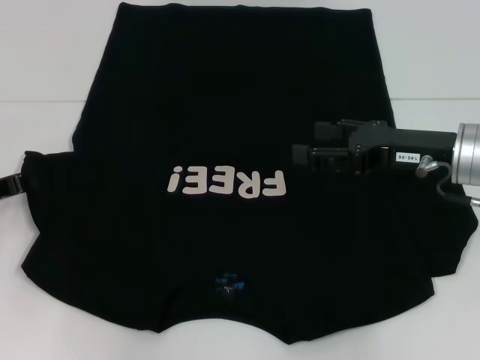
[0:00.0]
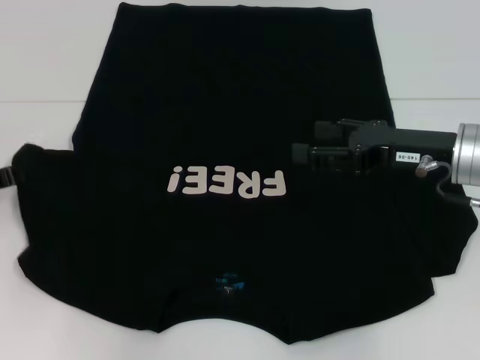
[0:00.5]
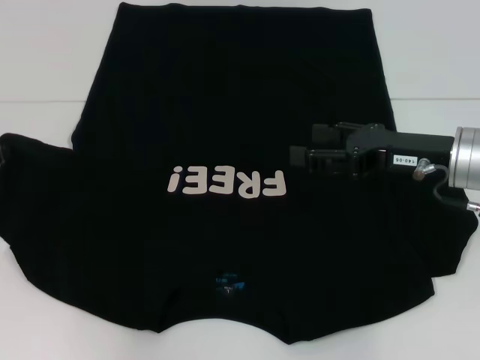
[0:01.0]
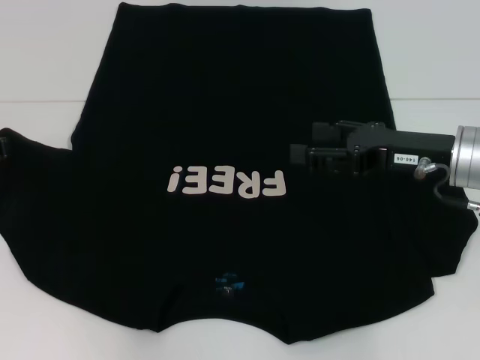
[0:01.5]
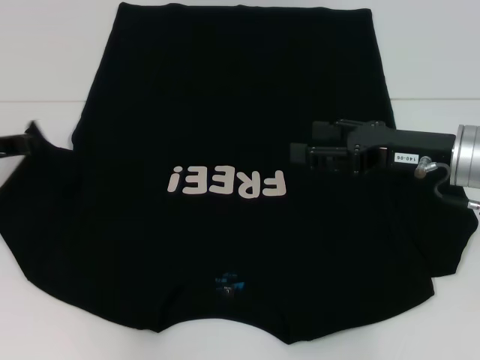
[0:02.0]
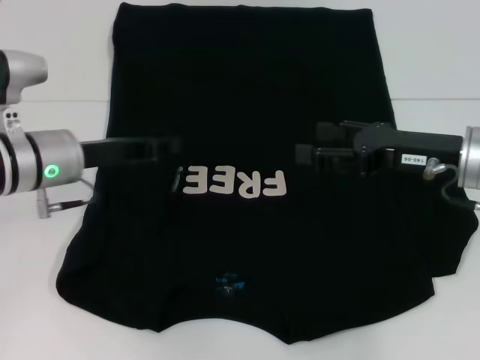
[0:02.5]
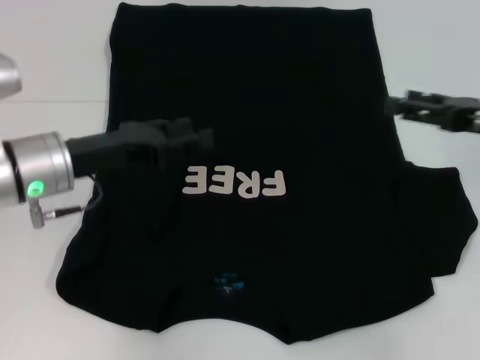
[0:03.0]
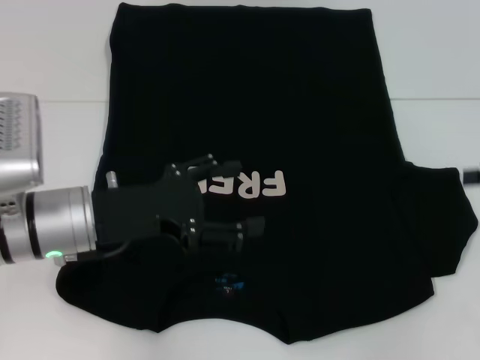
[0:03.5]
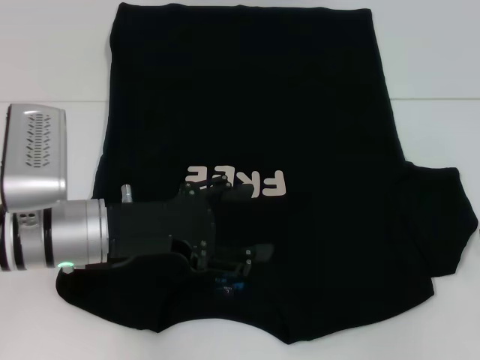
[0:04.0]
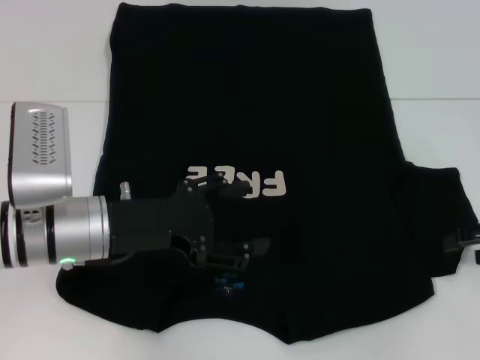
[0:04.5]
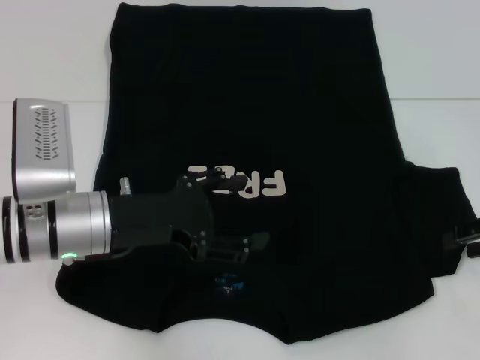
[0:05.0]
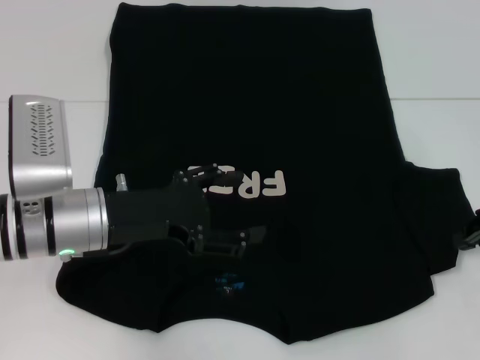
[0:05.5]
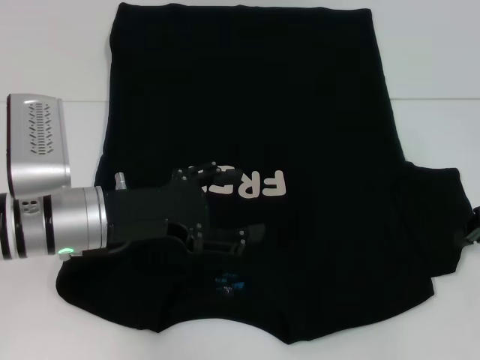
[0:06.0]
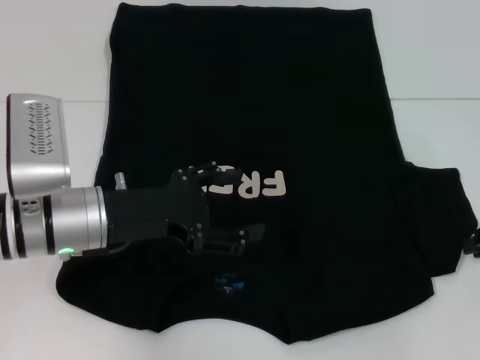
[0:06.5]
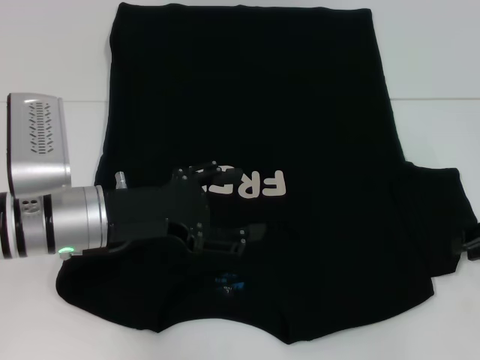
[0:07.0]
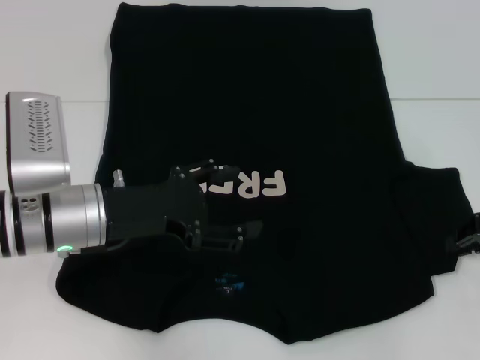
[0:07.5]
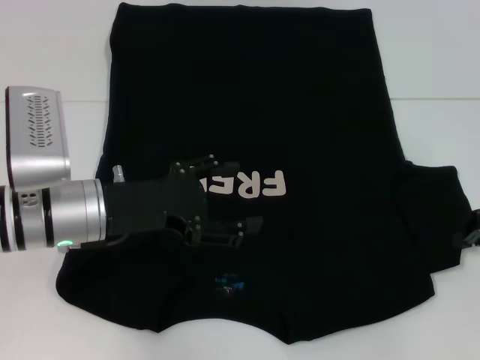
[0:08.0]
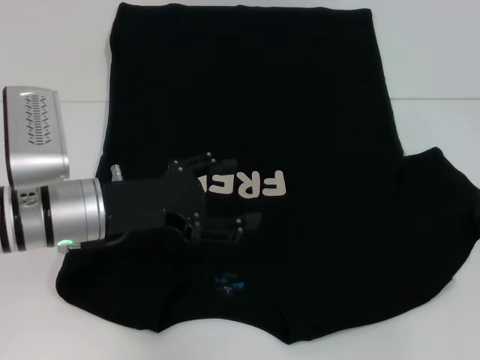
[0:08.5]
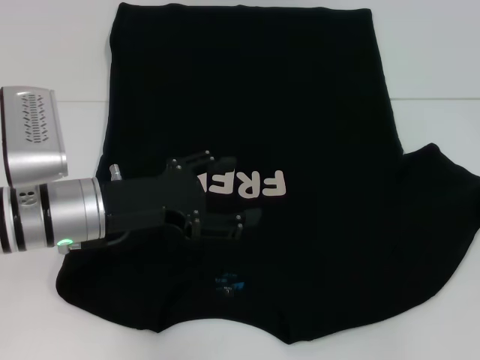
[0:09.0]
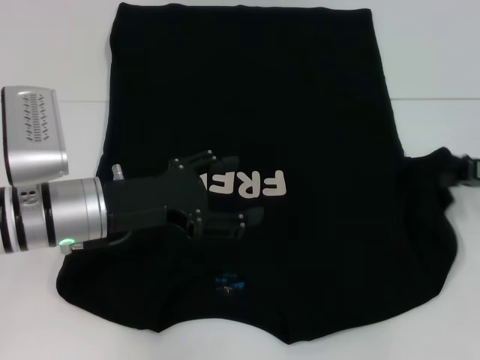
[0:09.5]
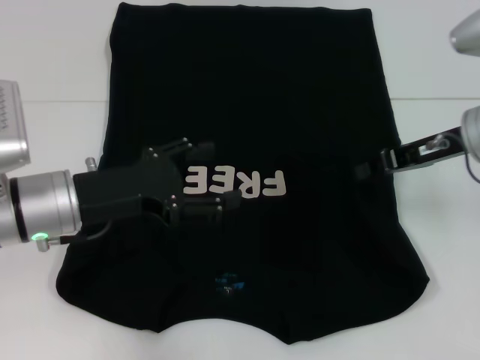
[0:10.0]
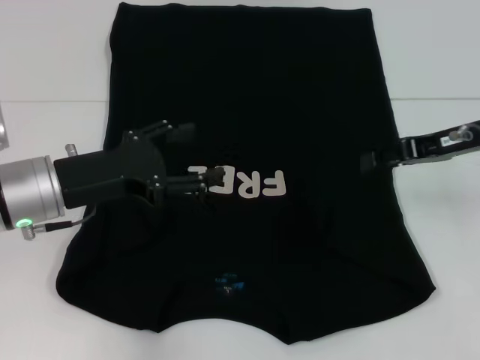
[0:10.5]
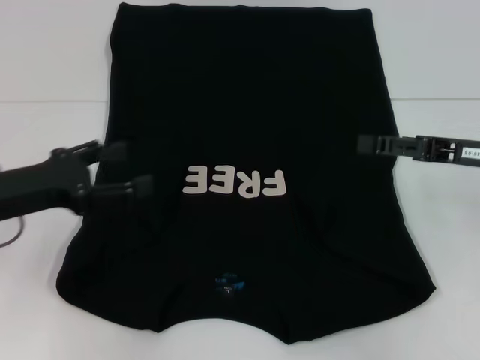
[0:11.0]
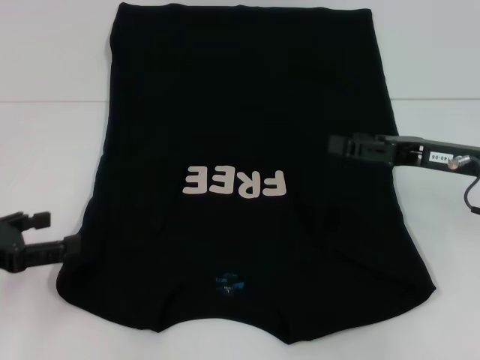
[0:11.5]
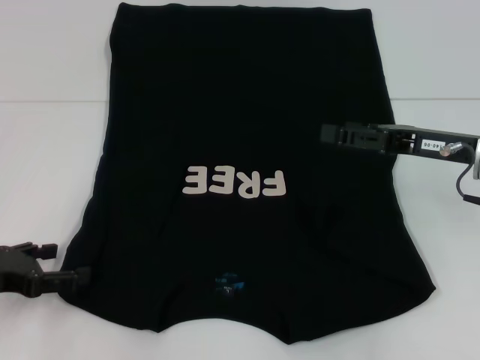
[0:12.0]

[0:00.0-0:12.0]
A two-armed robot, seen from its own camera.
Step, 0:00.0 to 0:03.0: Fold the bottom left sleeve with your left hand.
Step, 0:03.5 to 0:10.5: Fold the bottom right sleeve with your right hand.
0:00.0 to 0:02.0: The left gripper moves some 5 cm.
0:02.0 to 0:04.0: The left gripper heads to the right and backward, covering roughly 15 cm, and opens, while the right gripper is displaced to the right by some 15 cm.
0:04.0 to 0:06.0: The right gripper shifts by some 5 cm, and closes up.
0:06.0 to 0:08.0: The right gripper opens and closes again.
0:08.0 to 0:10.0: The right gripper shifts roughly 10 cm to the left and upward.
0:10.0 to 0:12.0: The right gripper opens up. Meanwhile the left gripper travels to the left and backward by approximately 15 cm.

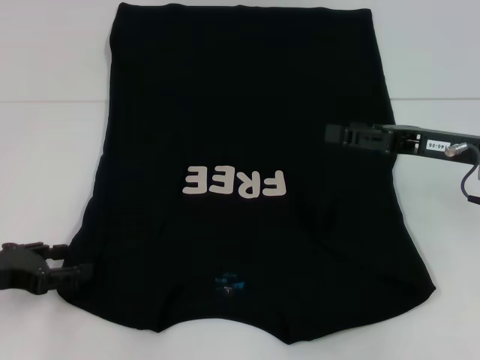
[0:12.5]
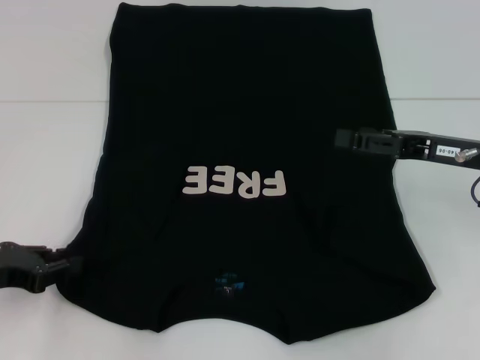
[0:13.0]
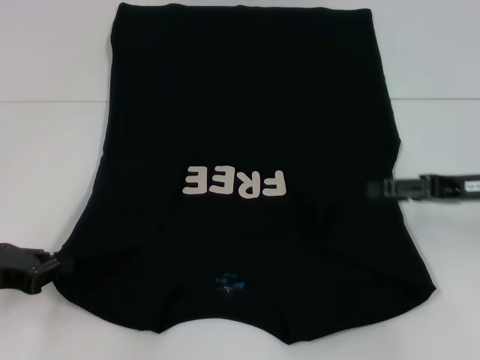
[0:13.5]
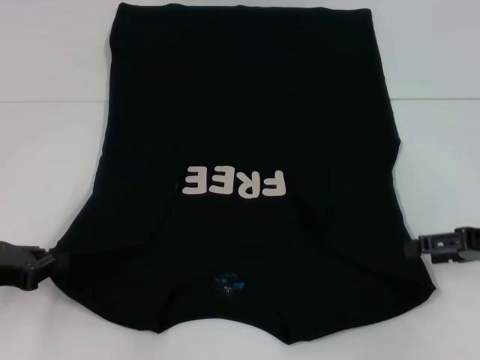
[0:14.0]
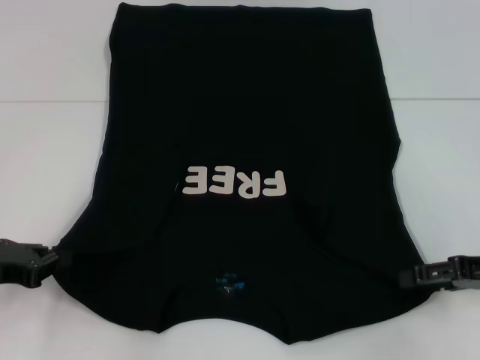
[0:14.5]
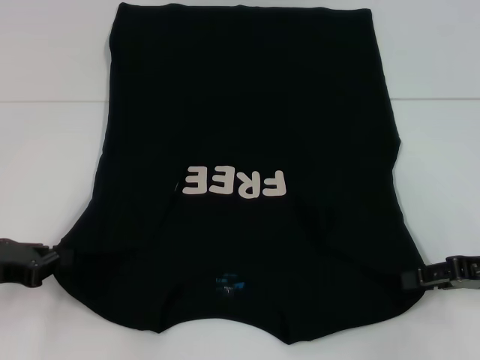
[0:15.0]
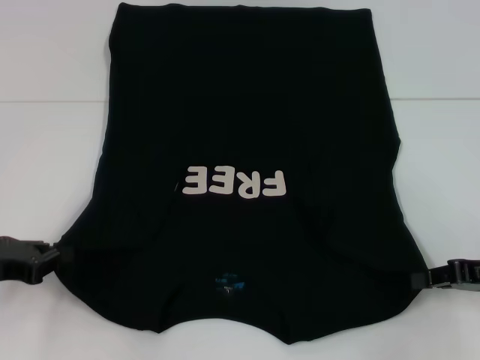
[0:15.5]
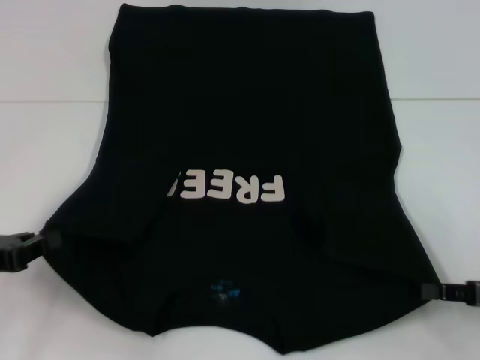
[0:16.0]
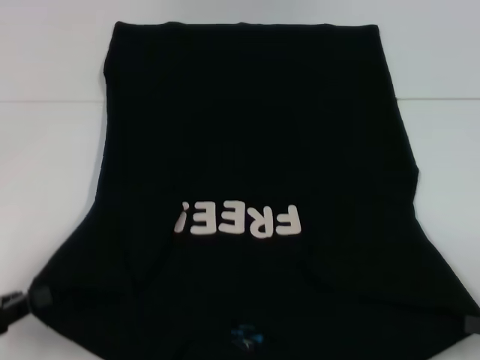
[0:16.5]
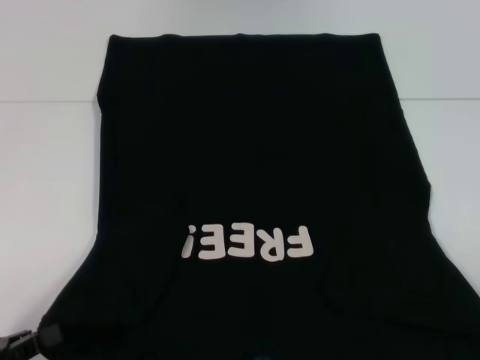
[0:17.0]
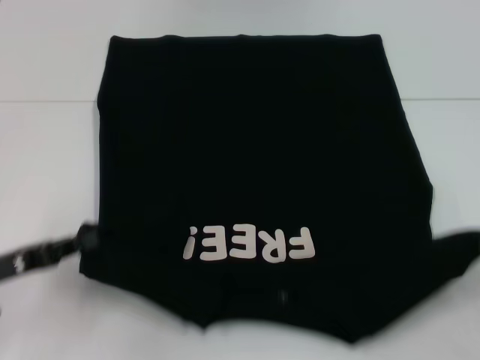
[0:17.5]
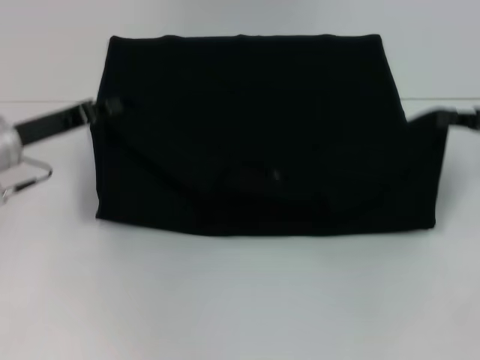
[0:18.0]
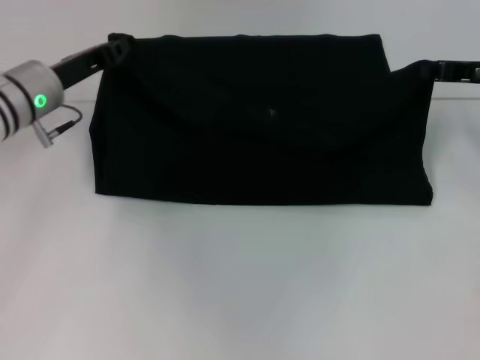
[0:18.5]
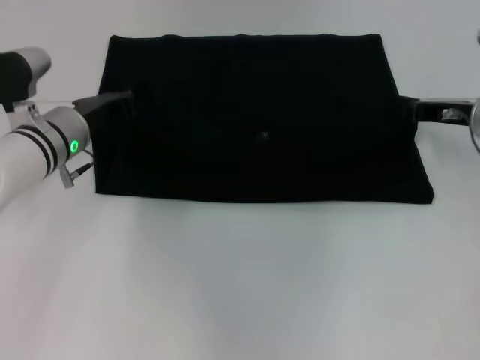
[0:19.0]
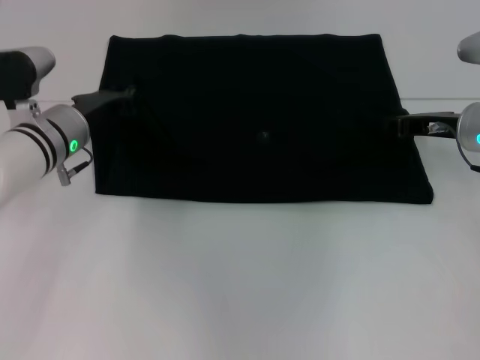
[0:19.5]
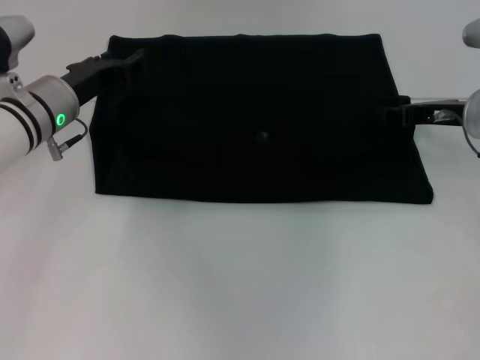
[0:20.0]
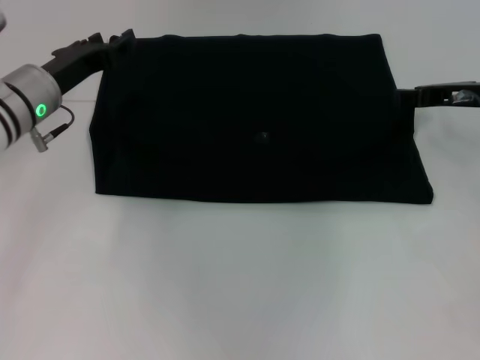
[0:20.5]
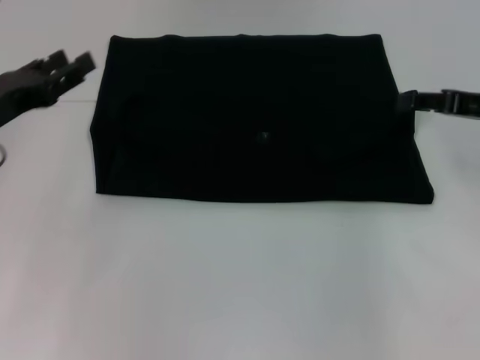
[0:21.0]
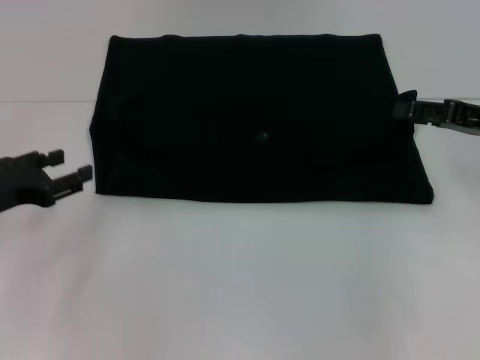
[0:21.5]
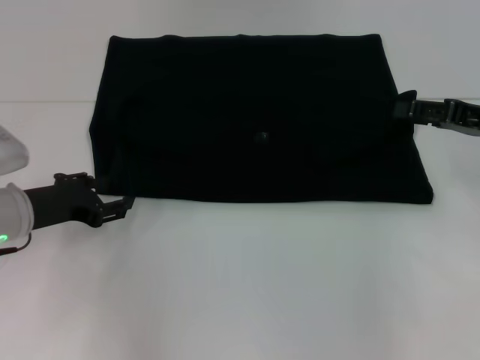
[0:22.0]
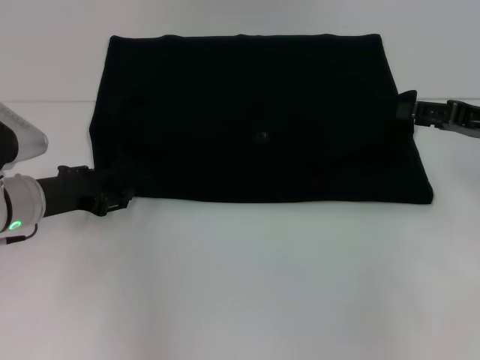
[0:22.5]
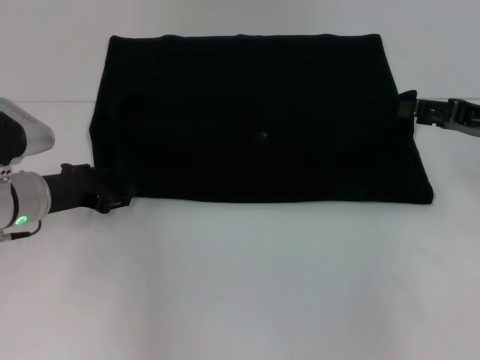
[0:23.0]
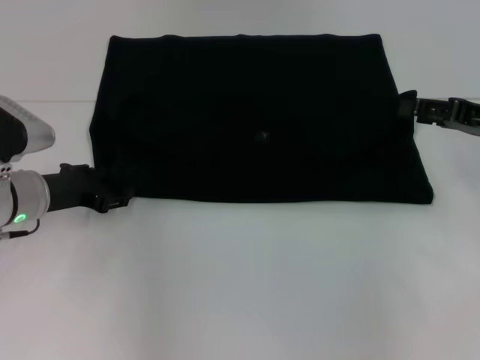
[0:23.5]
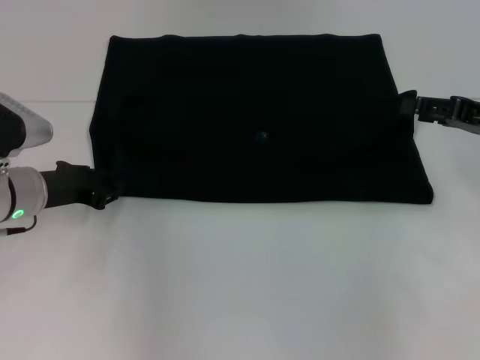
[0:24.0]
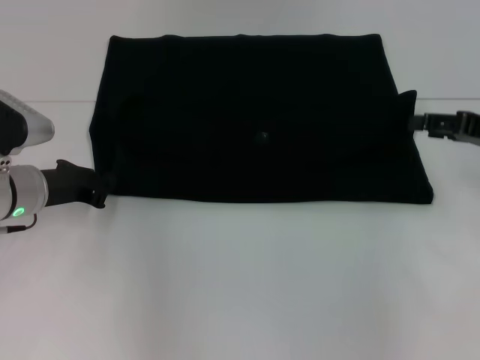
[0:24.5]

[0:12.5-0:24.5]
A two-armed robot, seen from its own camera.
Step, 0:12.5 to 0:15.5: Grab the bottom right corner with your right hand.
Step, 0:16.0 to 0:20.0: Fold the clothes with your left hand.
Step, 0:16.0 to 0:20.0: Fold the clothes with your right hand.
0:12.5 to 0:14.5: The left gripper closes up. The right gripper heads to the right and backward, covering some 10 cm.
0:14.5 to 0:16.5: The grippers both shift backward by some 10 cm. The right gripper closes.
0:16.5 to 0:18.5: The left gripper moves forward and to the right, approximately 25 cm. The right gripper shifts about 25 cm forward and upward.
0:18.5 to 0:20.5: The right gripper opens up. Meanwhile the left gripper opens up.
0:20.5 to 0:22.5: The right gripper heads backward, covering approximately 5 cm. Meanwhile the left gripper shifts approximately 10 cm backward and downward.
0:22.5 to 0:24.5: The left gripper closes its fingers.

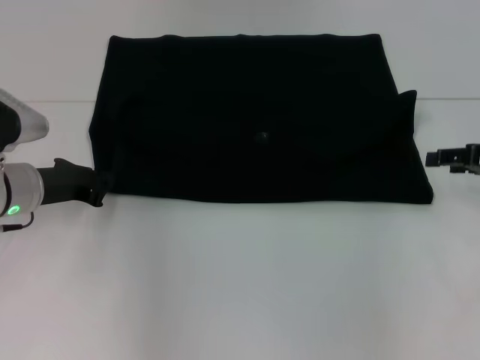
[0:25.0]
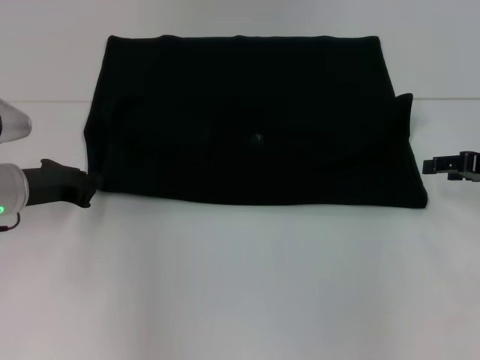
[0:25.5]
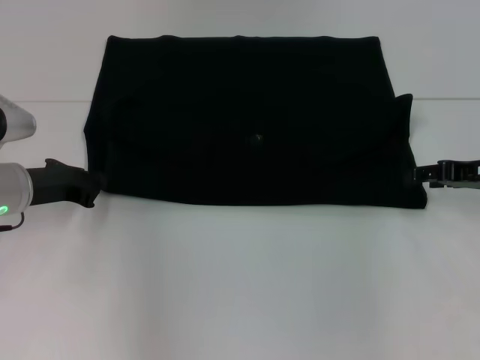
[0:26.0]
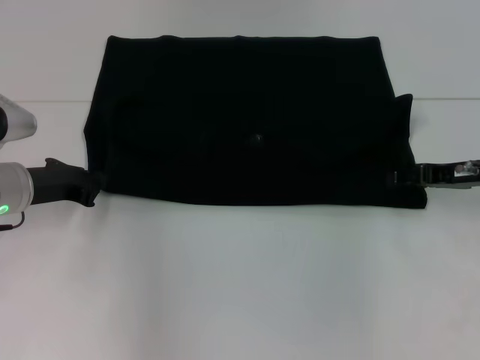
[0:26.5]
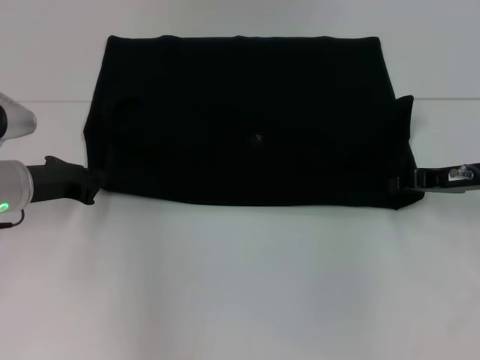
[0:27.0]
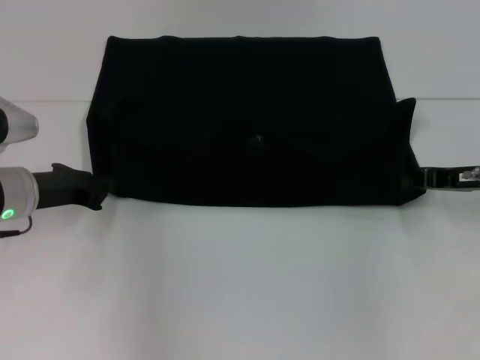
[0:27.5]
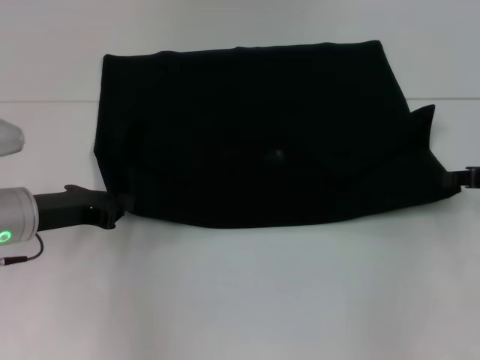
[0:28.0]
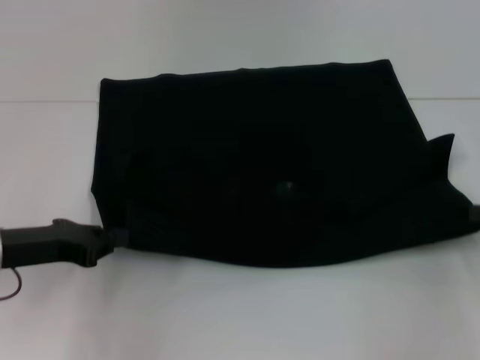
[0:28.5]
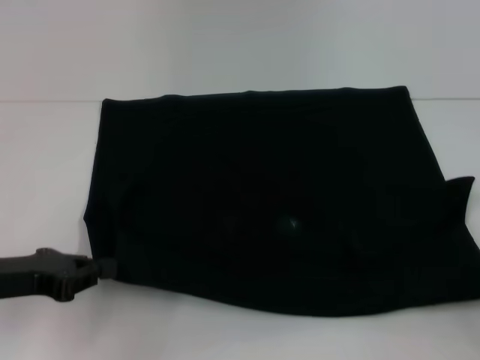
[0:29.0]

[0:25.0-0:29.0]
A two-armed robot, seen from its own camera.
0:25.0 to 0:27.0: The right gripper shifts some 5 cm to the left.
0:27.0 to 0:29.0: The right gripper moves backward and to the right, some 20 cm, and closes. Meanwhile the left gripper heads backward, covering roughly 10 cm.
